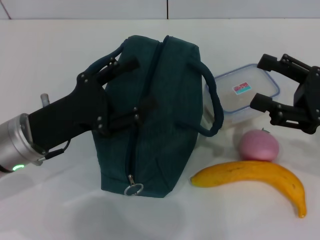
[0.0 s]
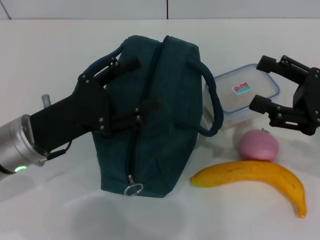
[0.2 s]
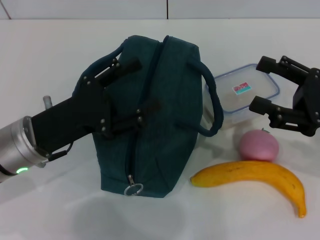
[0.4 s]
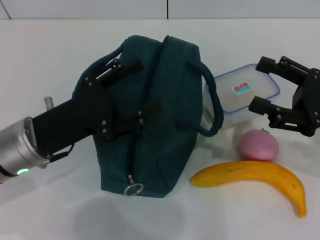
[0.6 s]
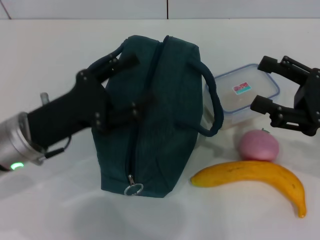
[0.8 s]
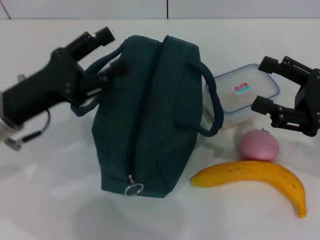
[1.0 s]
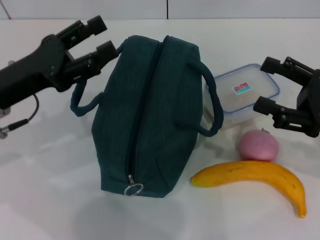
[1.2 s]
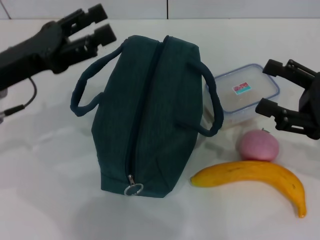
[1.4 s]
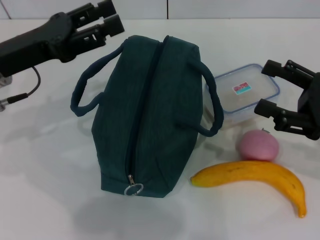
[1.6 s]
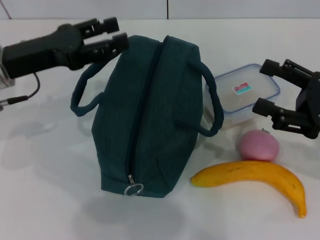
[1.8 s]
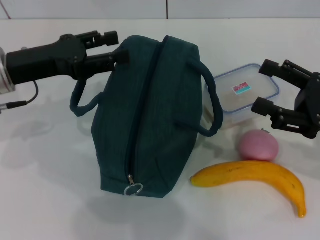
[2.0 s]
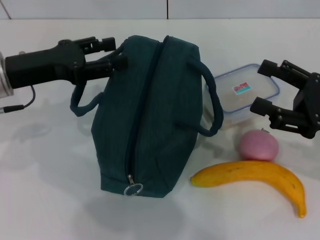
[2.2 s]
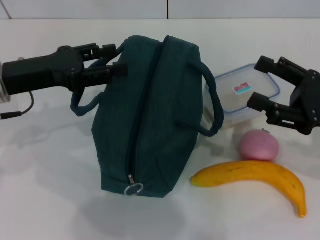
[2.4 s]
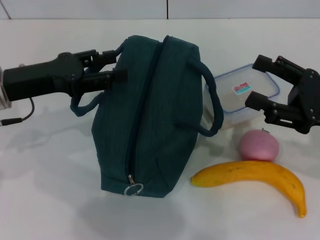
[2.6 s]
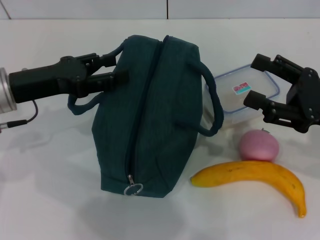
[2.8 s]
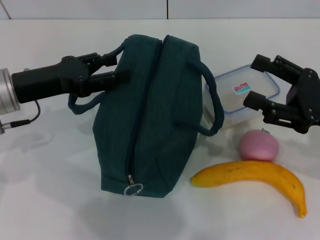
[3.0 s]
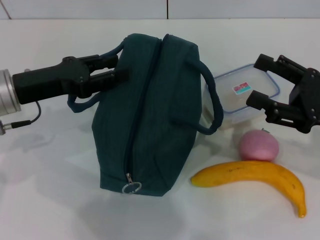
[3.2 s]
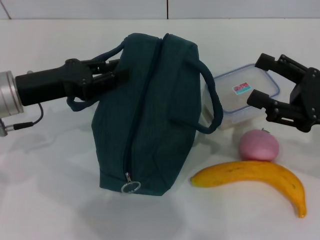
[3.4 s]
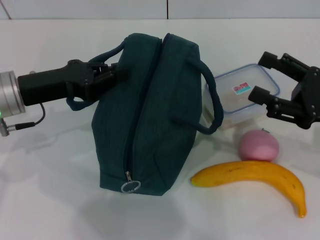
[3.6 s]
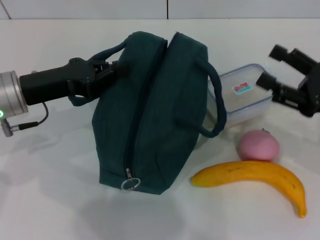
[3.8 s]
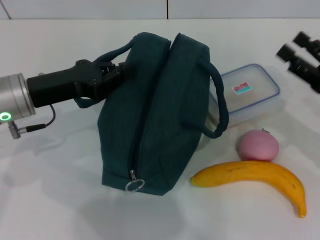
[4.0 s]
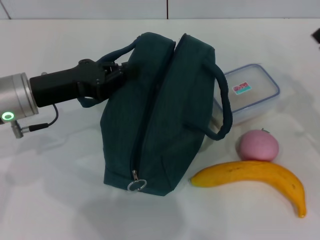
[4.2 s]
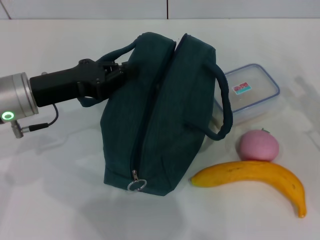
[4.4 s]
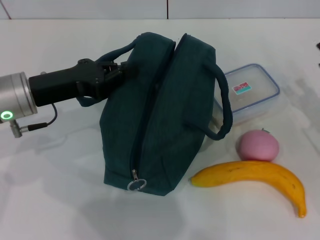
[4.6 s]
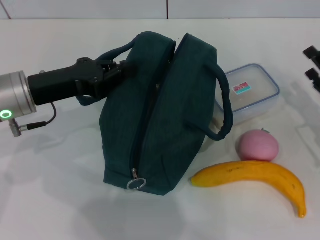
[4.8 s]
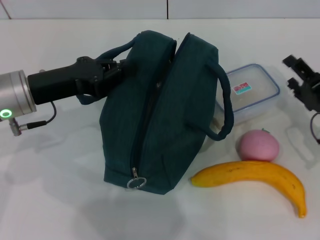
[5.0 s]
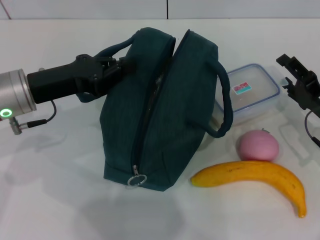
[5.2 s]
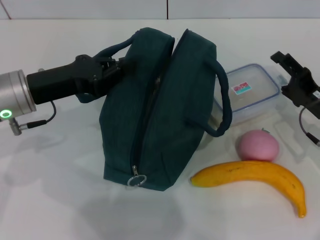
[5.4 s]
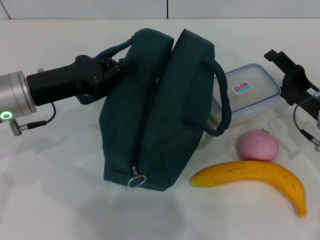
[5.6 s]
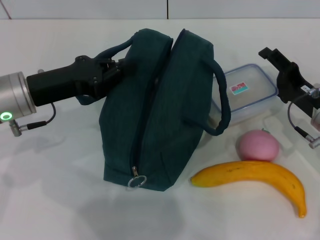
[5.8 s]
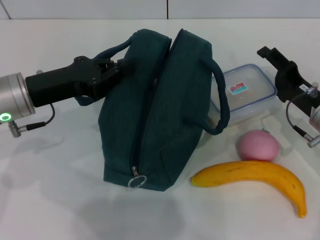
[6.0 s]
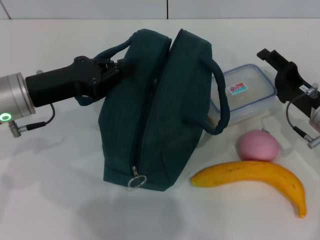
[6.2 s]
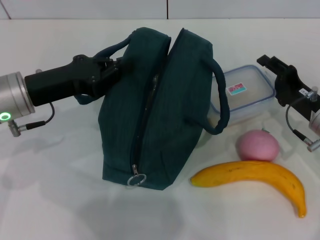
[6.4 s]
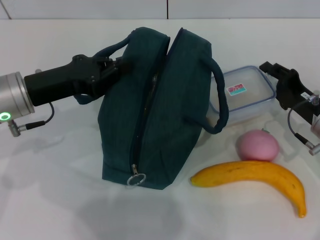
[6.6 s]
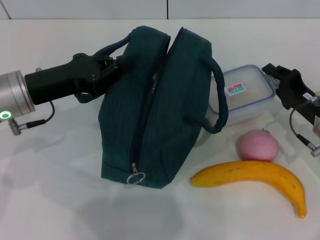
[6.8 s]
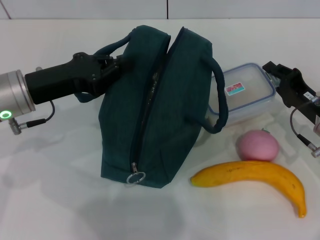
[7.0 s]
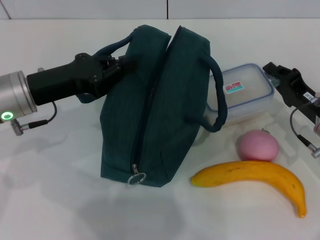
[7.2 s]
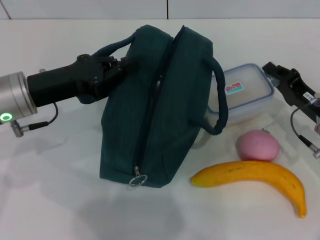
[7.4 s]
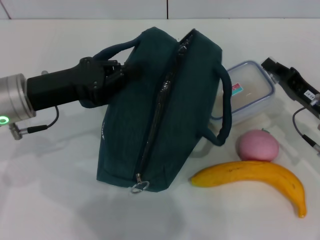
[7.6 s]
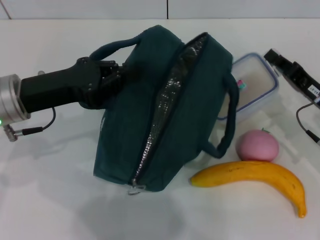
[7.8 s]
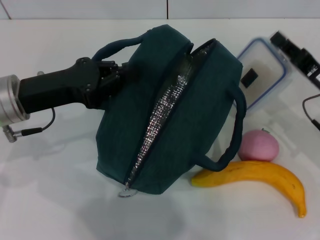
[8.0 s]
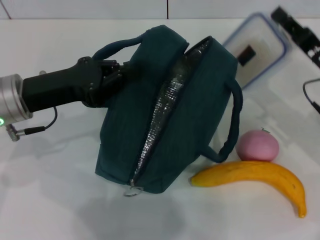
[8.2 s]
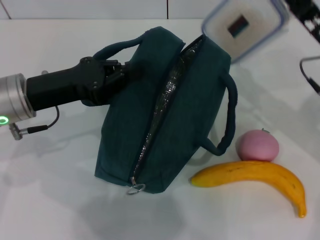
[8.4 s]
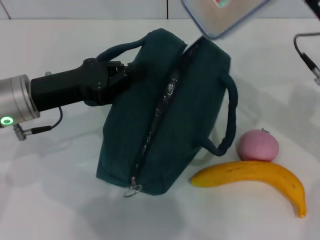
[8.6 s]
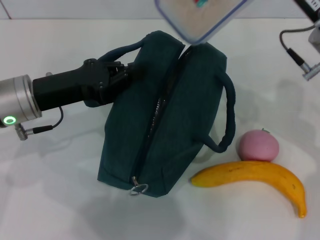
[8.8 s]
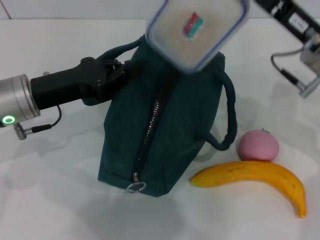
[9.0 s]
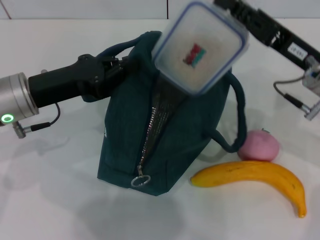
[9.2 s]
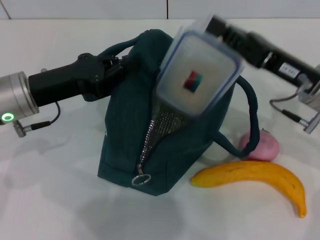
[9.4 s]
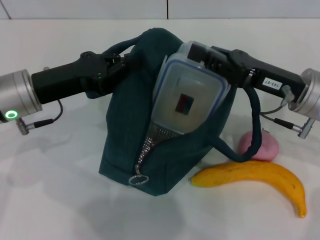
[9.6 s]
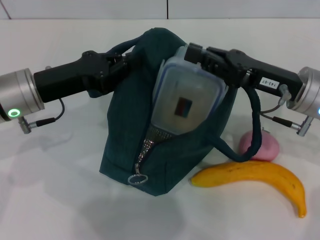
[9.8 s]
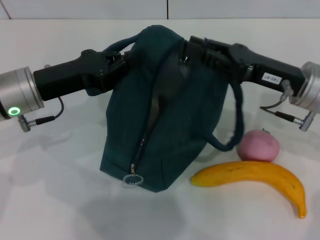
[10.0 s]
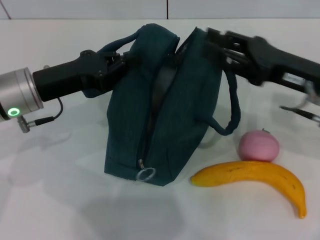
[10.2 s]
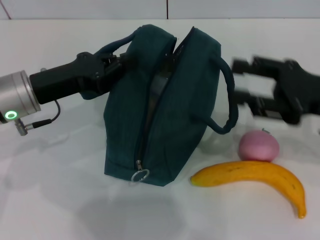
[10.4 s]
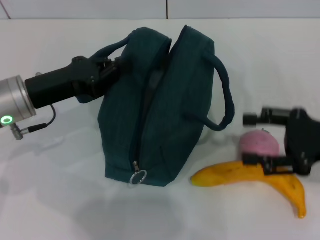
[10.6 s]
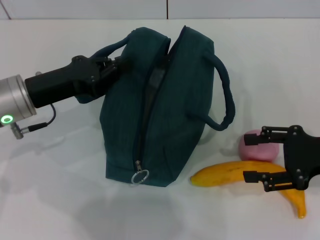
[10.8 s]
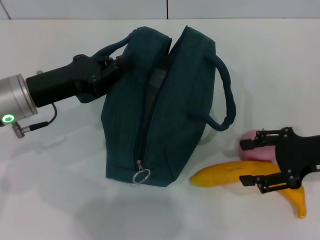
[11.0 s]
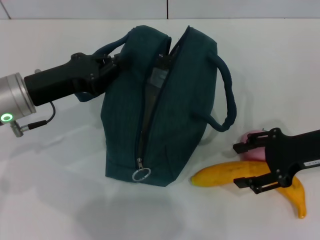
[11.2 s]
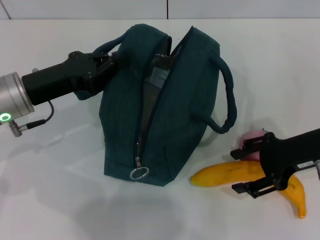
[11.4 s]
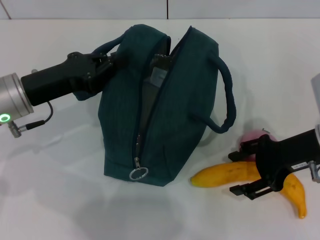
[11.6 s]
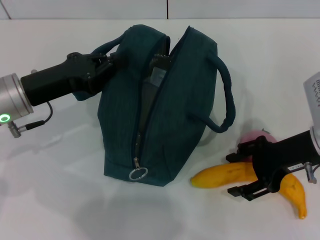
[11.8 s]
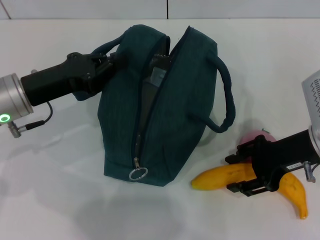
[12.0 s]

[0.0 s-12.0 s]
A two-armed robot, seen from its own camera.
Step, 0.0 to 4.0 s: Hold the lunch bag with your left hand.
Step, 4.2 to 7.0 s: Pick up the lunch box with your right hand.
Step, 7.2 to 10.0 s: Place the lunch box into the lunch bag with your right hand.
0.0 to 1.6 s: The left gripper moves forward and upward, roughly 10 cm.
1.6 to 3.0 s: The grippers move only a little.
3.0 to 4.4 s: The left gripper closes its fingers. Meanwhile the right gripper is displaced downward by approximately 5 cm.
4.4 to 6.0 s: The right gripper travels to the left by some 5 cm.
6.0 to 7.6 s: The right gripper closes its fingers.
7.6 to 9.0 s: The right gripper goes roughly 15 cm upward and to the left.
9.0 to 10.4 s: The right gripper is displaced to the right by approximately 5 cm, and opens up.
10.4 to 12.0 s: The right gripper changes place by about 5 cm.

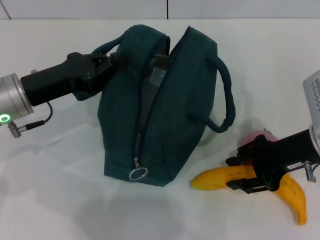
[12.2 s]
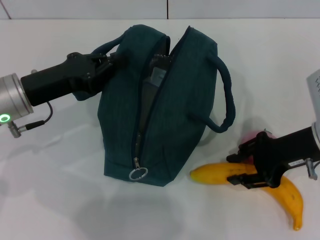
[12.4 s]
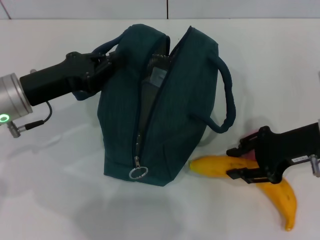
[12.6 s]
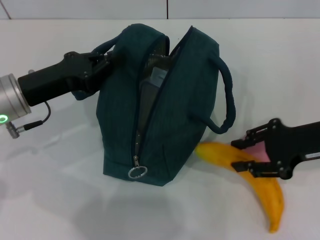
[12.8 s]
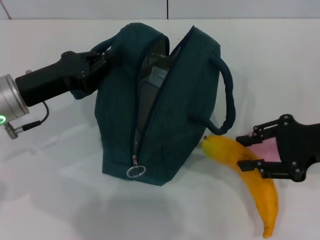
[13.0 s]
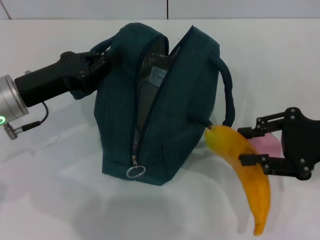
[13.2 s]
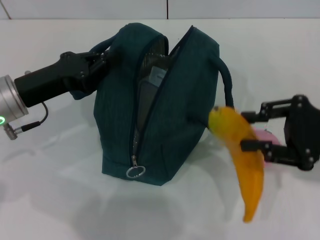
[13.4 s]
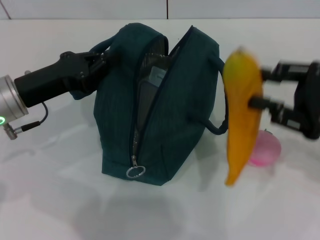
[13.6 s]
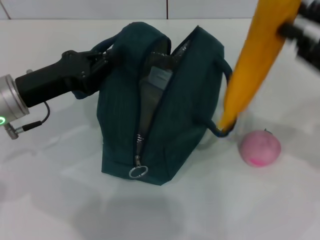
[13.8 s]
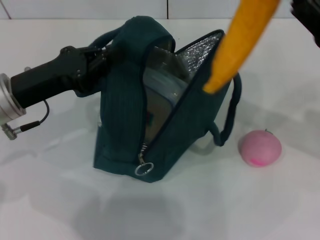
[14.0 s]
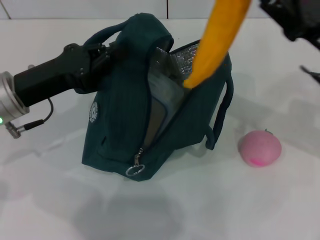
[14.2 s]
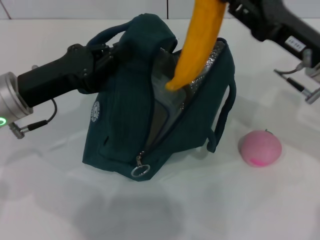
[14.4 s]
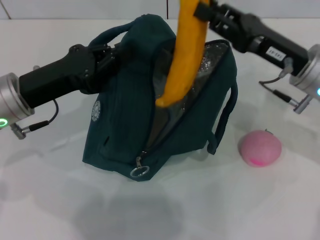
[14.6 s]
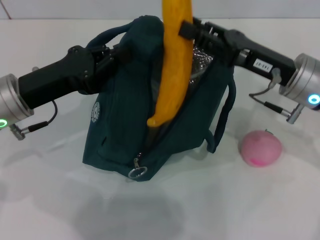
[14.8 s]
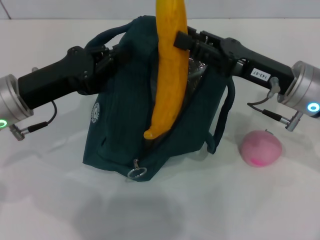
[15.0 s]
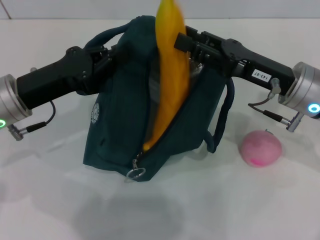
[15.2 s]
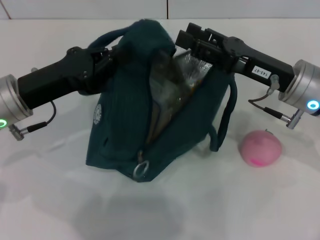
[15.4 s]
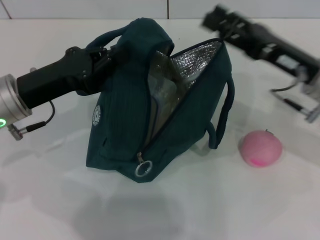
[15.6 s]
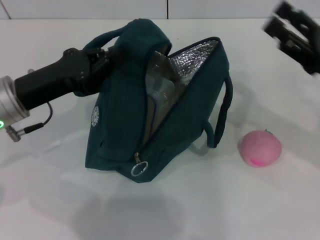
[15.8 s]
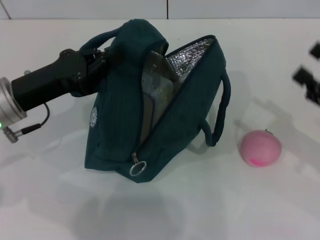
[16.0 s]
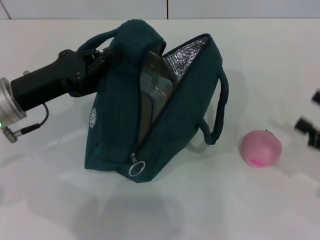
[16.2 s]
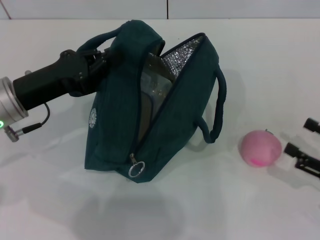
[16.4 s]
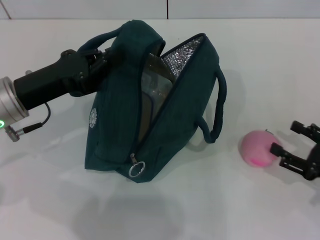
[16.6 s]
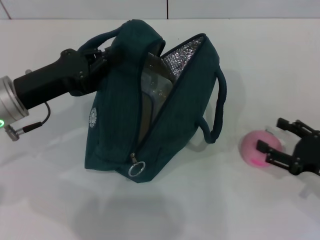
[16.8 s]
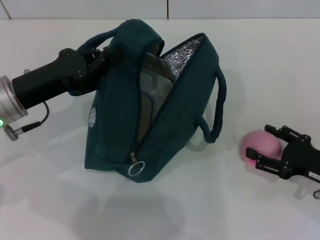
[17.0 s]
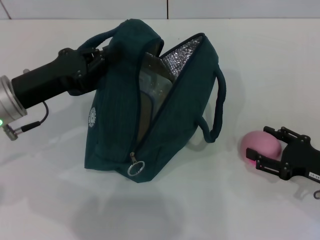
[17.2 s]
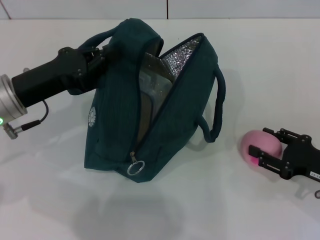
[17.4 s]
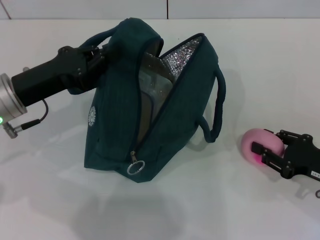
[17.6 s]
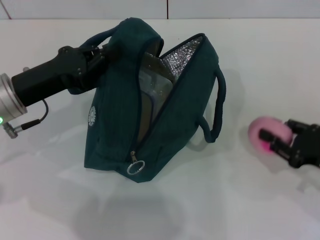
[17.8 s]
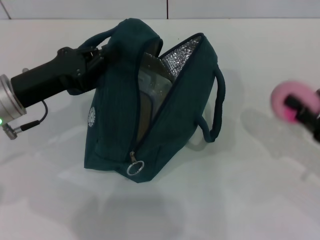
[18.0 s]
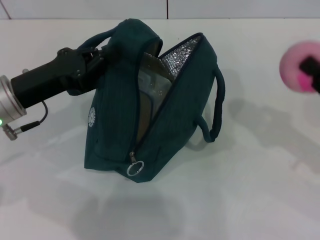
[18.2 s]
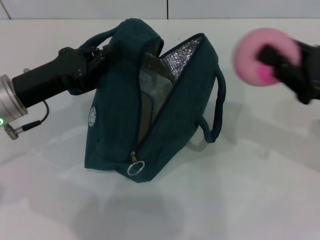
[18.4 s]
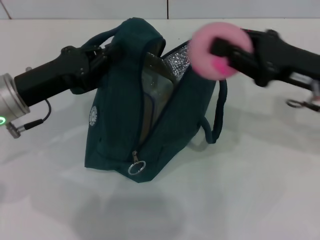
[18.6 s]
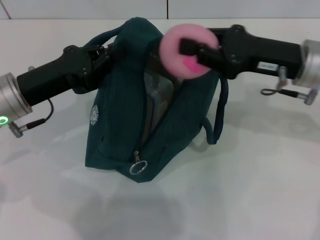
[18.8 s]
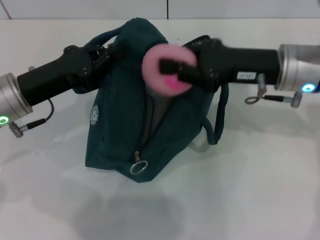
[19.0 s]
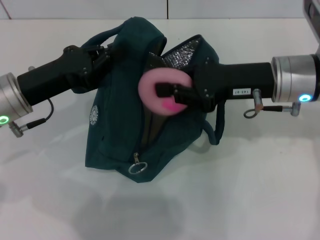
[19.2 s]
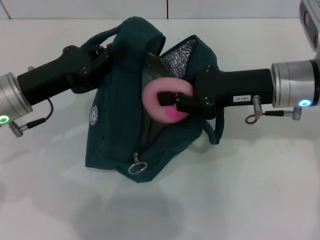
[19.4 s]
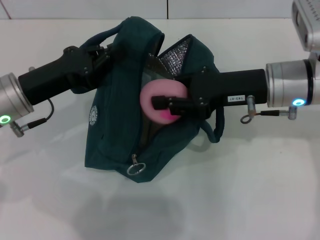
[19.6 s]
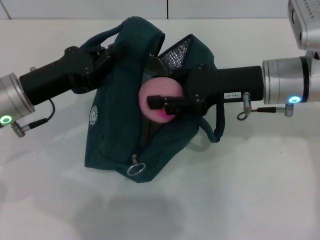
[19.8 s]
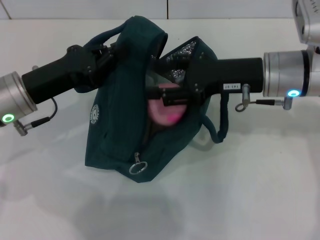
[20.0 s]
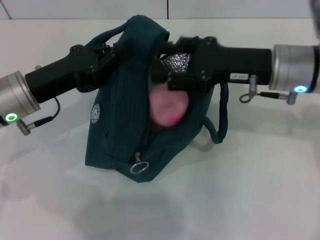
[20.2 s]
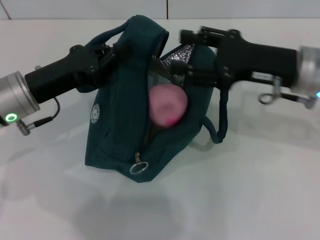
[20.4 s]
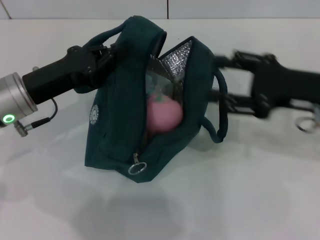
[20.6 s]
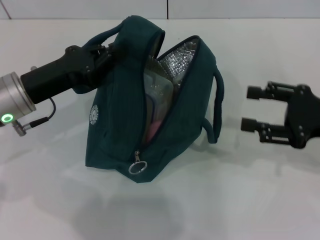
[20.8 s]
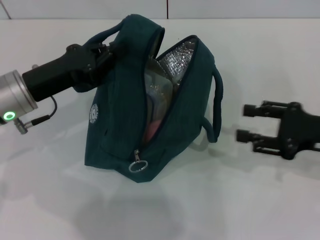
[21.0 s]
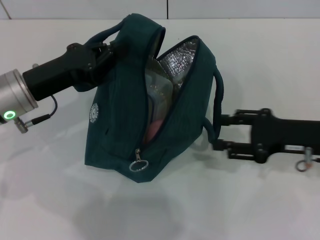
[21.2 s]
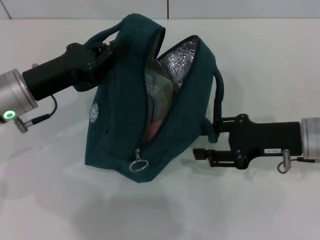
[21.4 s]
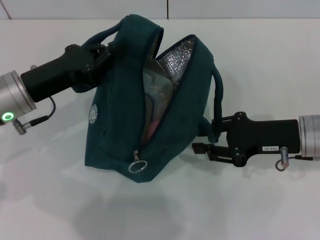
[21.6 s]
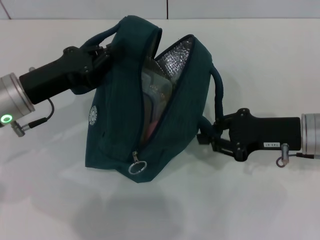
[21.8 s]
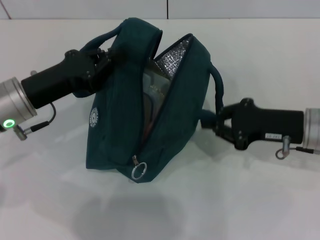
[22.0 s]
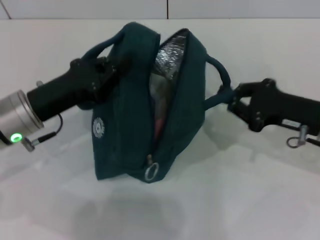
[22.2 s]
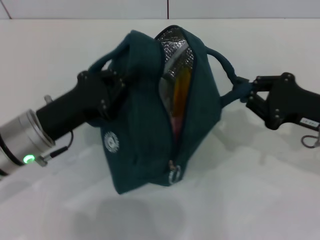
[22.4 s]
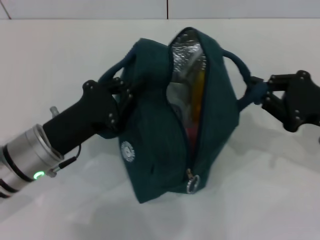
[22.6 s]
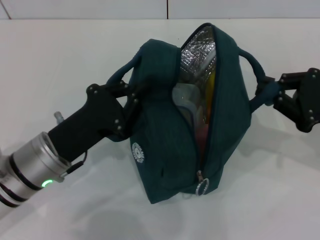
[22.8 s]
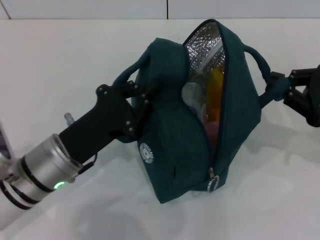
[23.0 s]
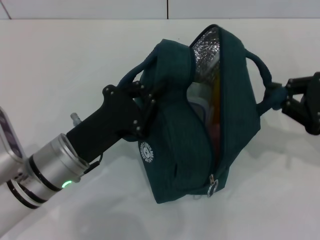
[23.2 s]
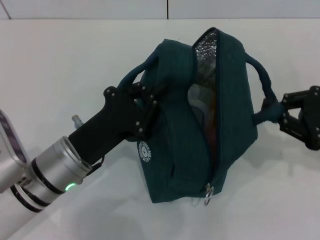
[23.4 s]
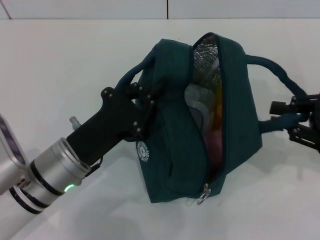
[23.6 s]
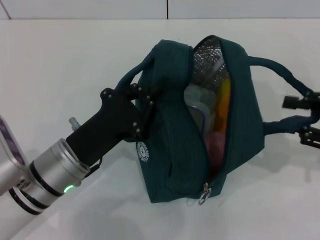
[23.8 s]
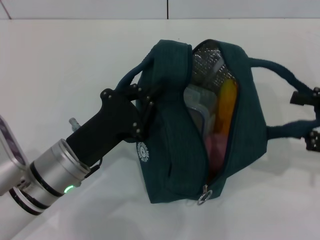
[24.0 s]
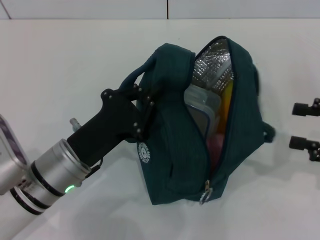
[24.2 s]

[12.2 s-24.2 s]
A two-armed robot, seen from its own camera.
Step, 12.6 to 15.2 s: Put the banana into the lunch bag with your right hand.
Step, 15.4 to 17.6 s: Grab the peach with your right hand.
Step, 20.2 to 23.6 s: Hold the lunch bag with your right hand.
12.2 to 13.8 s: The right gripper goes some 5 cm upward.
13.8 to 15.2 s: The right gripper shifts approximately 10 cm to the left.
15.2 to 16.6 s: The right gripper heads to the right, backward and downward, covering roughly 20 cm, and opens up.
16.6 to 18.2 s: The right gripper goes some 5 cm upward, and closes its fingers.
18.2 to 19.8 s: The right gripper goes roughly 20 cm to the left and forward.
19.8 to 21.2 s: The right gripper heads to the right, downward and backward, covering approximately 10 cm.
21.2 to 22.6 s: The right gripper closes its fingers, while the left gripper goes about 5 cm backward.
22.6 to 24.2 s: The right gripper moves to the right, roughly 5 cm, and opens up.
